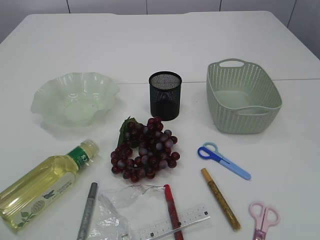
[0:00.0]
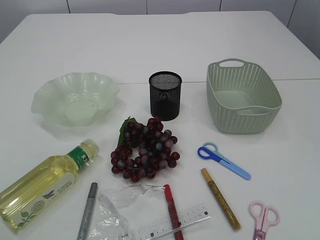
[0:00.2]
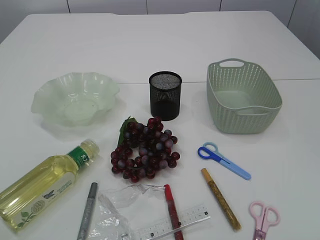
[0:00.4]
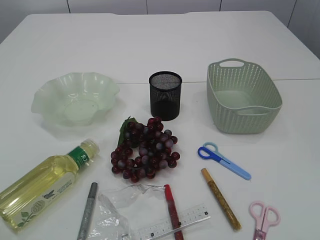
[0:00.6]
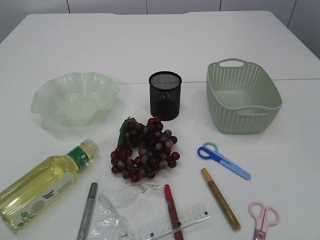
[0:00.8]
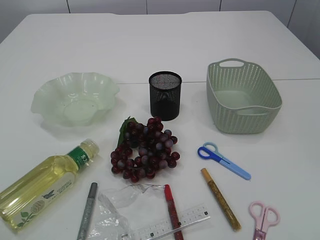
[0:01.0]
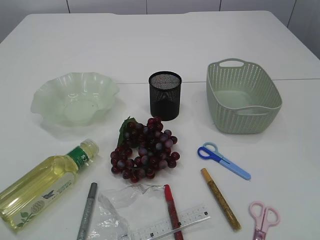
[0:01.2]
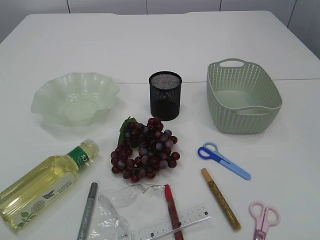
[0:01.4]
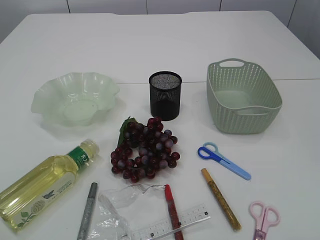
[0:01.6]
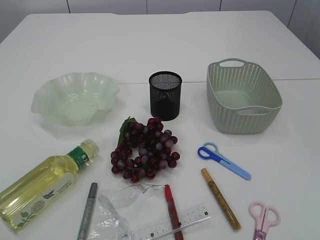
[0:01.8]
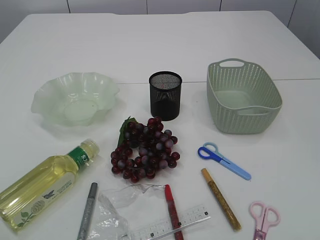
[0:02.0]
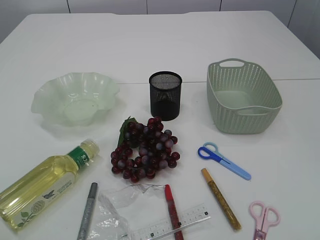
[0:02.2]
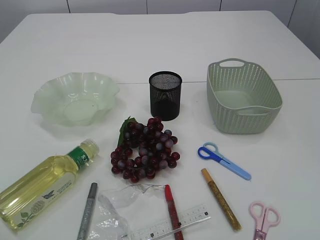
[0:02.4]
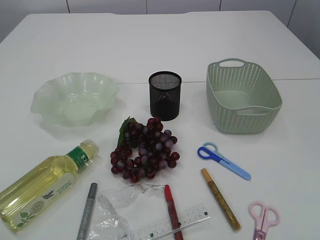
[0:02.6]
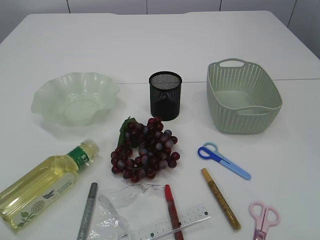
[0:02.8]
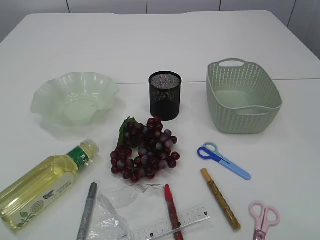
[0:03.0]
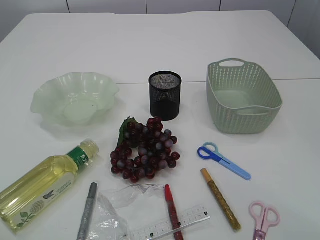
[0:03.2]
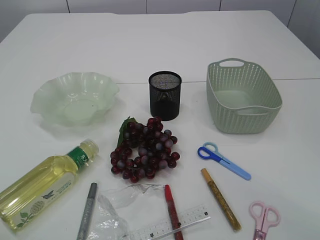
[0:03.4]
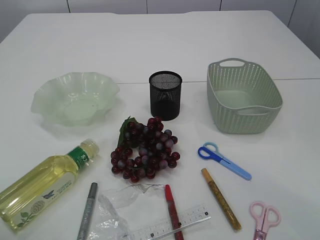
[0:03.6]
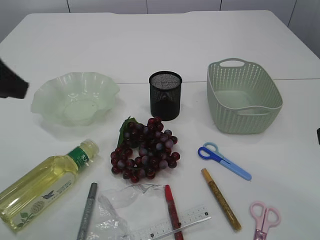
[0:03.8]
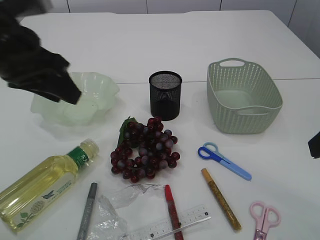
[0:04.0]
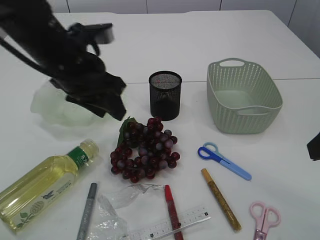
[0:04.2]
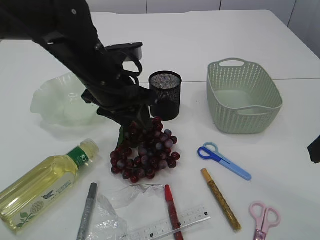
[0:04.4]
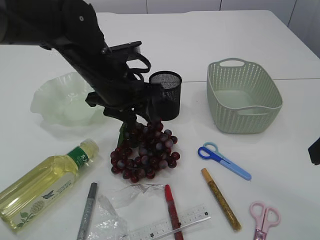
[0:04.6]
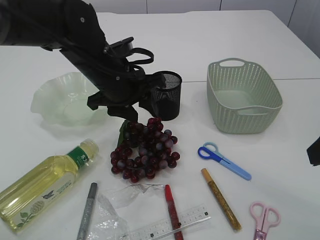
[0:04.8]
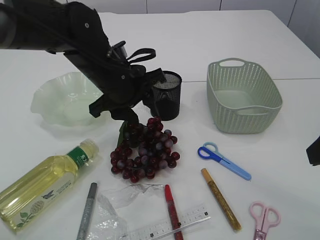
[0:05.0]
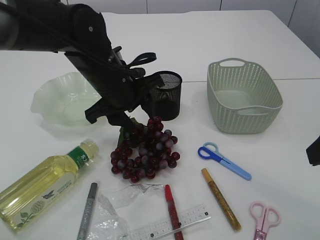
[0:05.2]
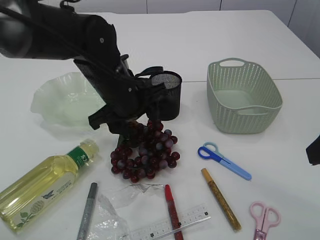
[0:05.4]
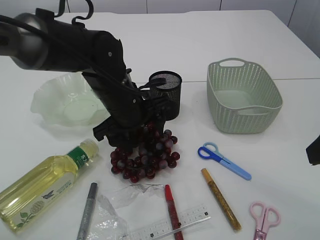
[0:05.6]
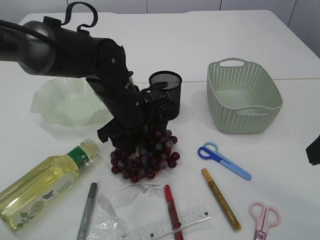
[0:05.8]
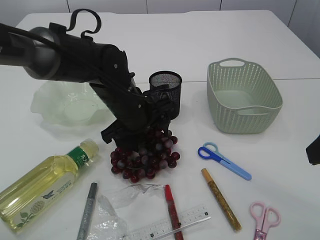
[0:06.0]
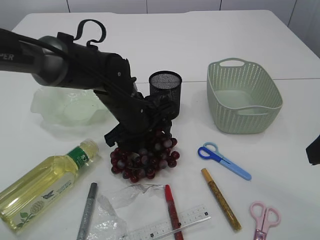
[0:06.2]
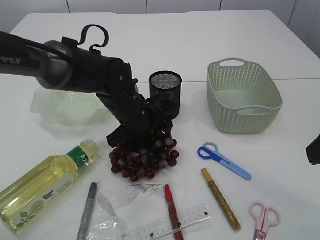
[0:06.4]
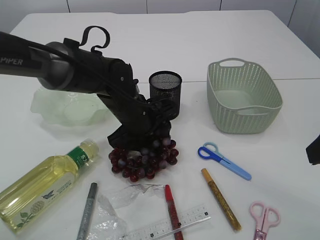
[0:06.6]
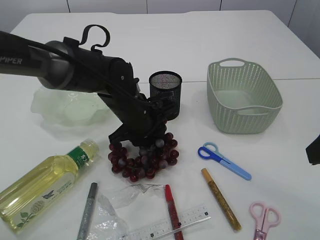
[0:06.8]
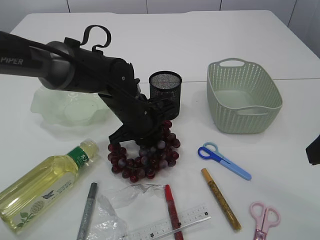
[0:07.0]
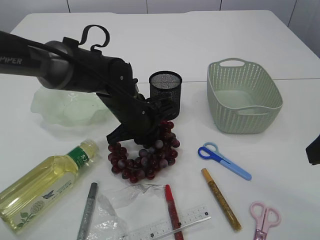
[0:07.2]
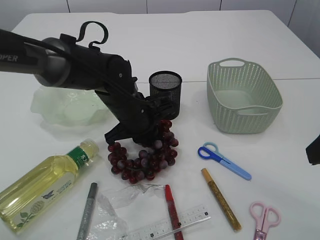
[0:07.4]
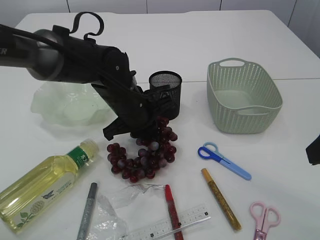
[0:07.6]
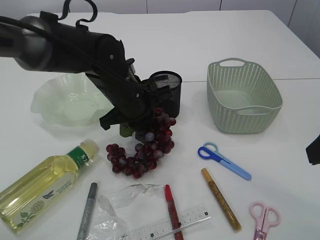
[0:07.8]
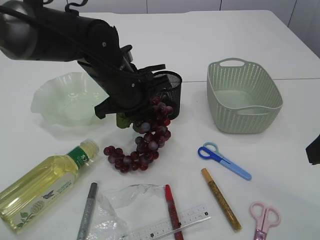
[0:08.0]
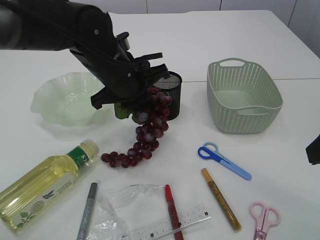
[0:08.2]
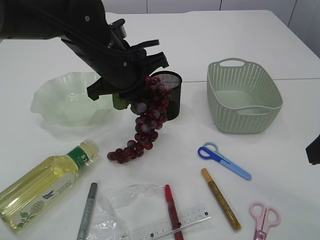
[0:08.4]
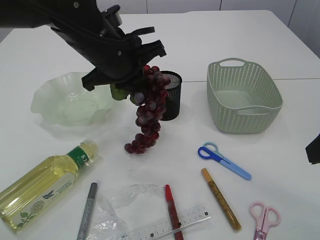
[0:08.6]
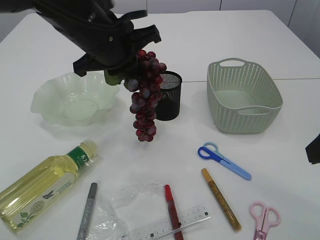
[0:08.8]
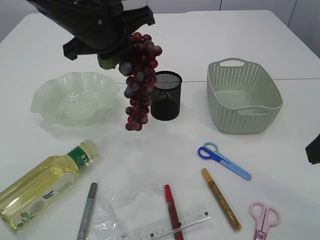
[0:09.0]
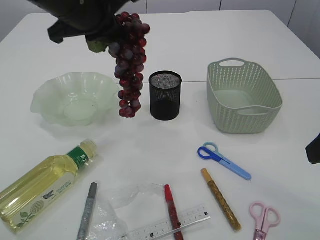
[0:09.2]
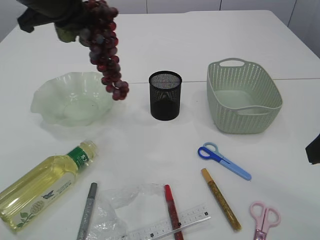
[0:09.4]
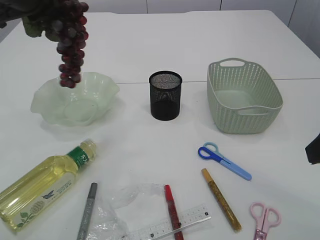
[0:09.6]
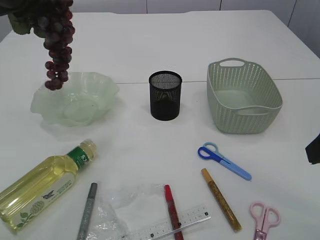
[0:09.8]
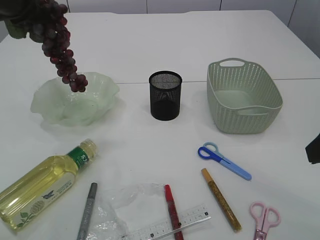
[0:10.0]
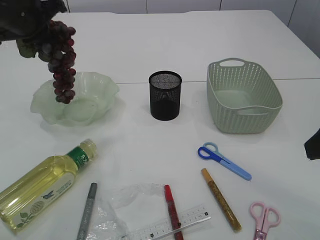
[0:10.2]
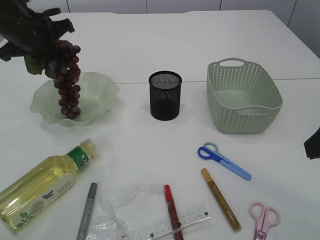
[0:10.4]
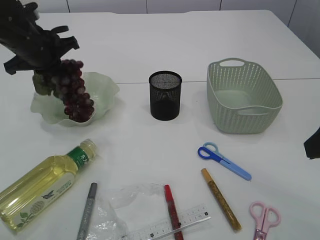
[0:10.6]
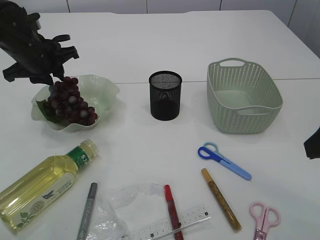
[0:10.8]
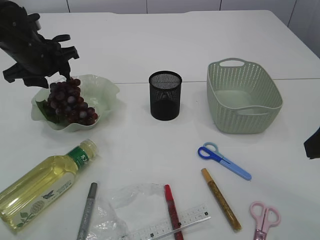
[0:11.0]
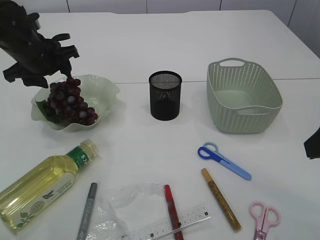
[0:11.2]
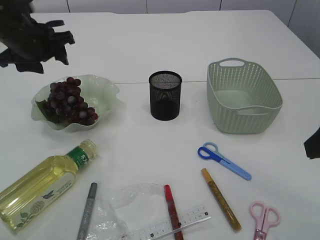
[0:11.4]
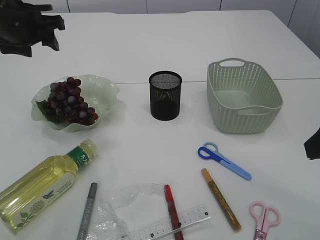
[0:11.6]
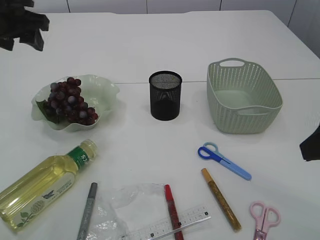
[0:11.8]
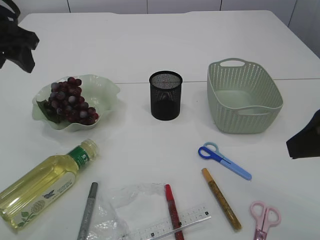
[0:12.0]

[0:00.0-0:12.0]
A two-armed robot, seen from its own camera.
Step, 0:00.0 to 0:08.8: Pick up the grapes.
Step, 0:09.0 to 0:11.6: Place the grapes in the plate.
0:03.0 to 0:04.4: The left gripper shifts about 35 cm forward and to the right, while the right gripper travels forward by approximately 15 cm.
0:04.4 to 0:06.0: The left gripper travels downward by approximately 5 cm, and opens its fingers.
0:06.0 to 0:07.6: The left gripper closes.
0:07.6 to 0:09.0: The left gripper heads upward, covering about 15 cm.
0:09.0 to 0:10.4: The left gripper moves to the left and forward, about 15 cm.
0:10.4 to 0:12.0: The left gripper heads backward and upward, covering about 10 cm, and opens.

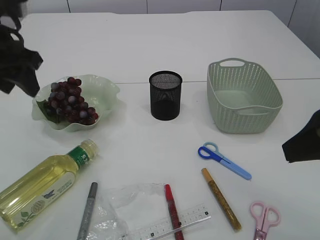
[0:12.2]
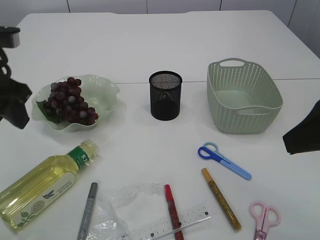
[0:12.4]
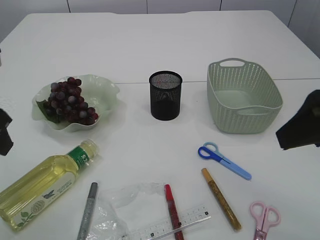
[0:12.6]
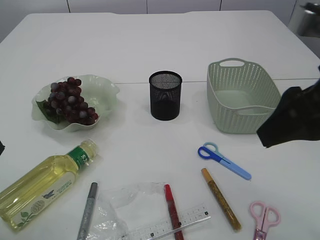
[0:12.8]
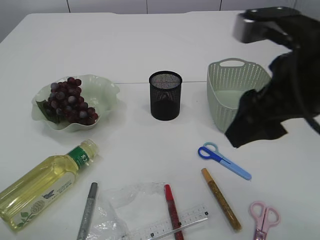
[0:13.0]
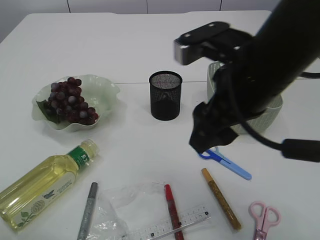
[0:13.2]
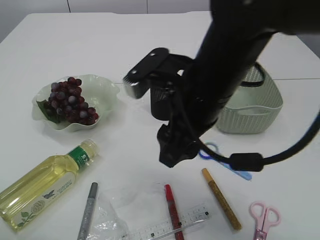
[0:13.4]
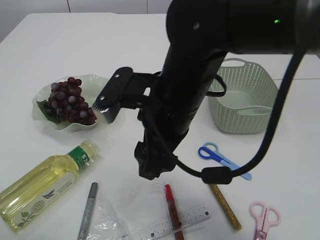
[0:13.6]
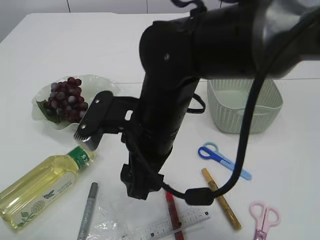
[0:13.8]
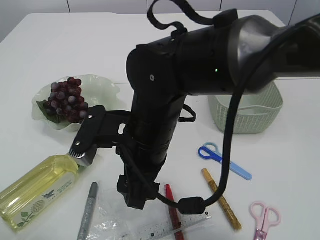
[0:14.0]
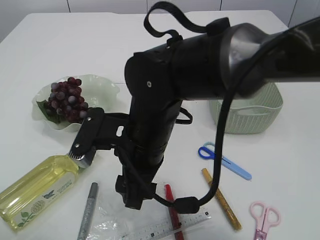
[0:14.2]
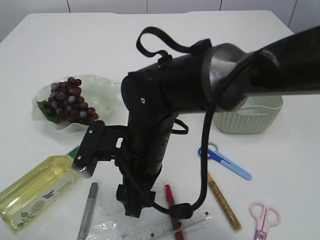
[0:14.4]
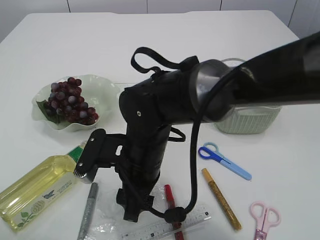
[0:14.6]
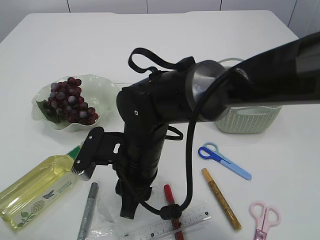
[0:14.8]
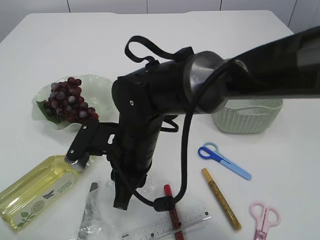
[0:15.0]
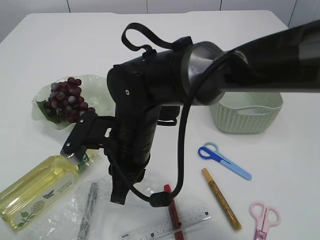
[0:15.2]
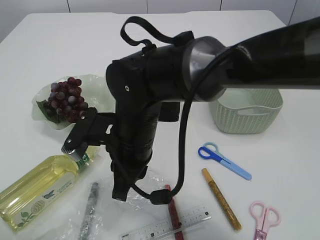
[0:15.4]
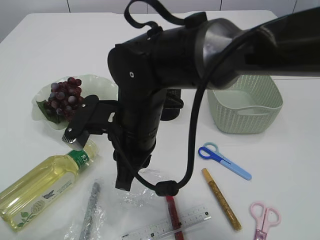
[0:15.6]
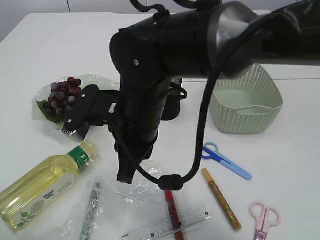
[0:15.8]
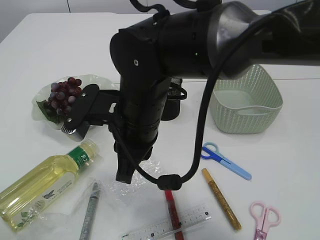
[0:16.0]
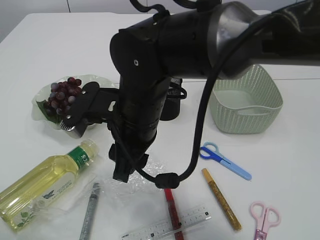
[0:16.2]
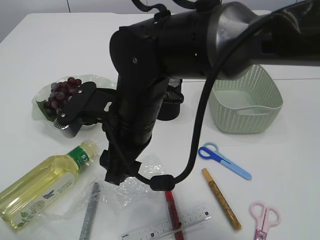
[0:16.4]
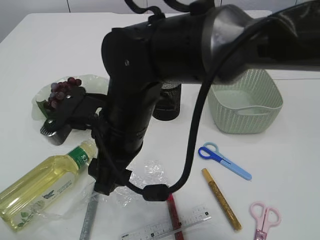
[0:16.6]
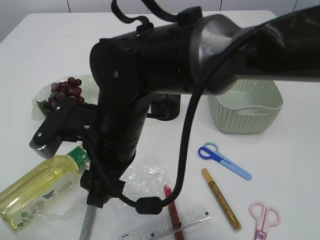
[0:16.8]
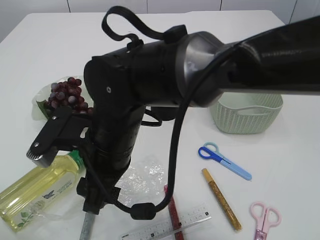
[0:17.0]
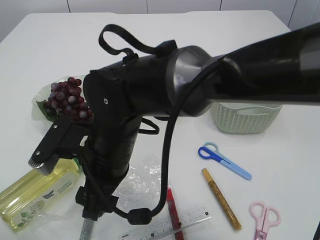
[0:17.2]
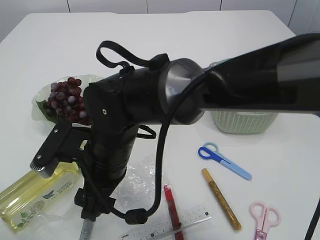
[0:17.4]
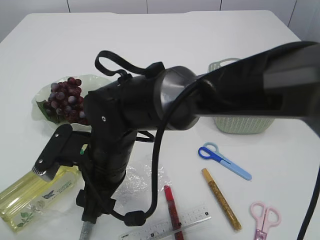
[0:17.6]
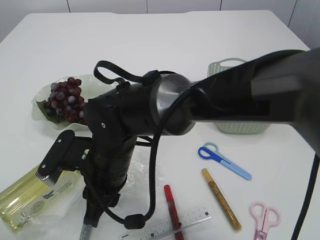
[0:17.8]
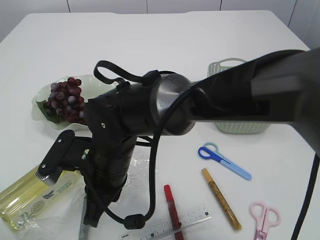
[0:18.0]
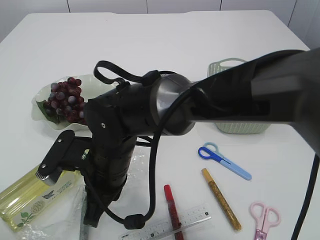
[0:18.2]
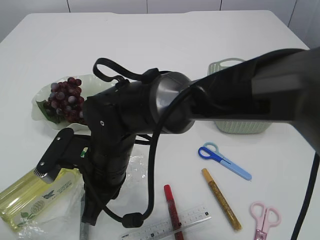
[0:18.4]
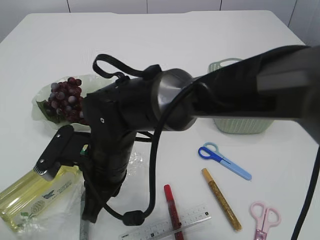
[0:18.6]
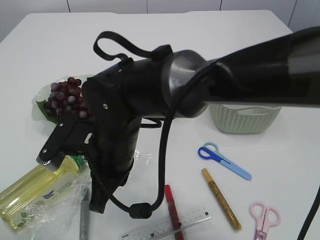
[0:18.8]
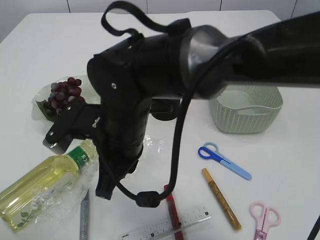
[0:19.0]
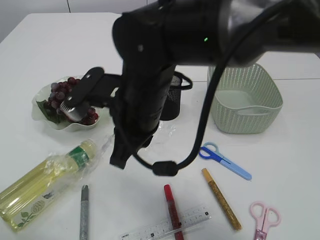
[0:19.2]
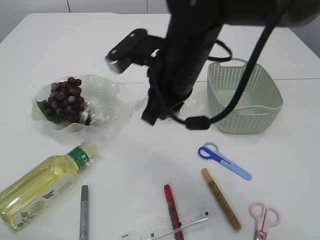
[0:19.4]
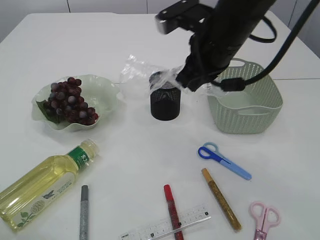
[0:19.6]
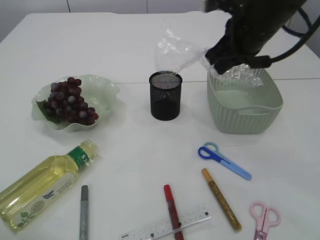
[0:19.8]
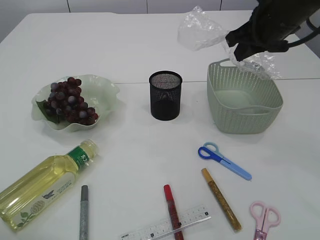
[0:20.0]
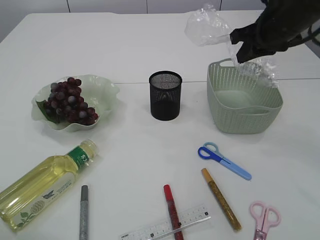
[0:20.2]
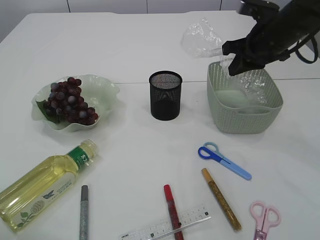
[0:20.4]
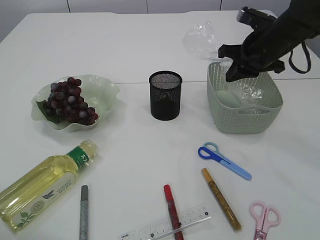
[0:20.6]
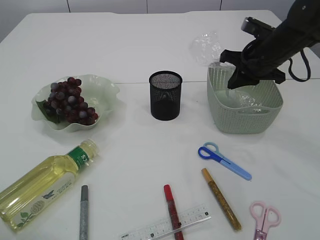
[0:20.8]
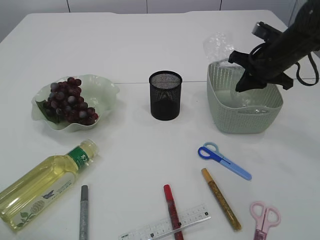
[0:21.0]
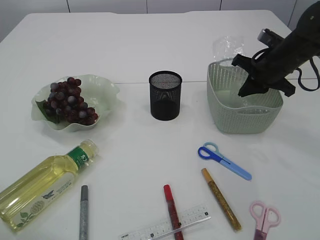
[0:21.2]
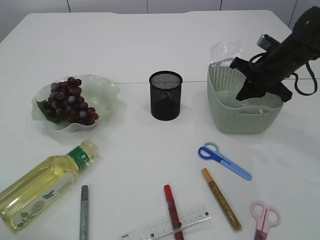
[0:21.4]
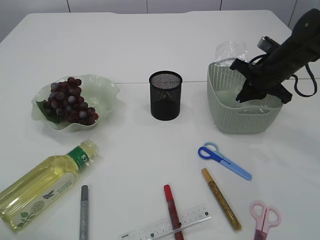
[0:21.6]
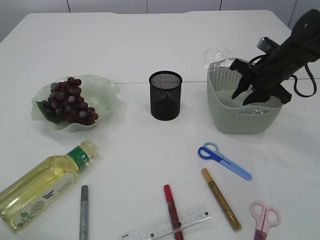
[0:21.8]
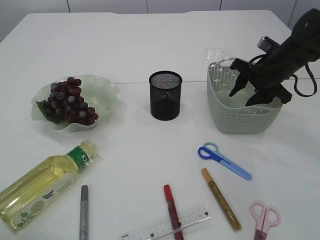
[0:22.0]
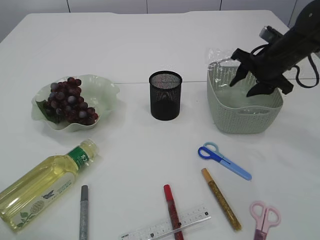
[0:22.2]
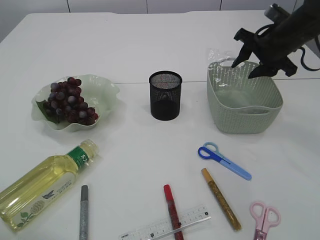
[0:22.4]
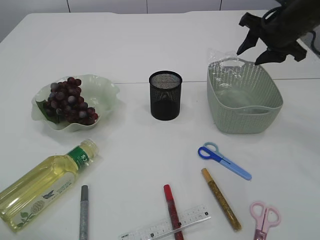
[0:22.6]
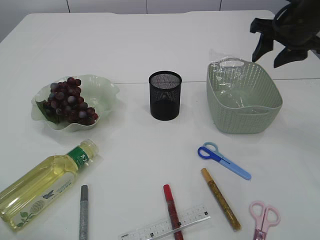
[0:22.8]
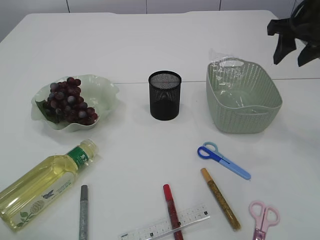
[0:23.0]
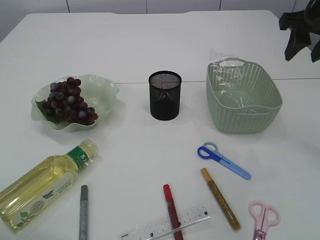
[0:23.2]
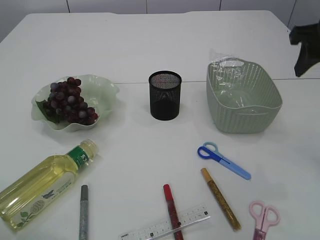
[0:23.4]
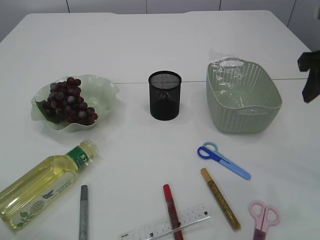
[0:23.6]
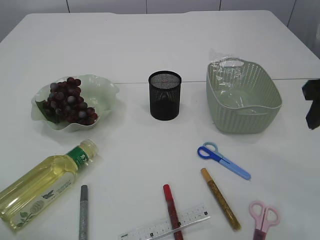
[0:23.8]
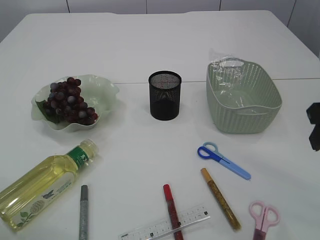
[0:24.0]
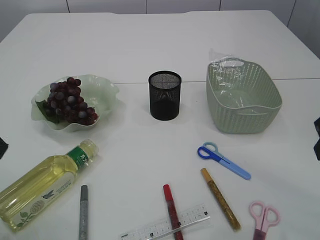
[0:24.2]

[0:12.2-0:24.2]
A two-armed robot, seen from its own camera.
Step, 0:12.2 to 0:19.2: Pick up the plastic.
Step, 0:19.4 to 0:22.6: Place the plastic in the basket.
0:12.2 to 0:13.8: The right gripper goes approximately 25 cm to the left; the left gripper moves backward, roughly 15 cm.
0:13.8 to 0:15.2: The right gripper goes about 5 cm downward, and closes its fingers.
0:15.2 to 0:16.6: The right gripper changes place by some 5 cm, and opens its fingers.
0:16.6 to 0:18.2: The right gripper heads downward, covering about 10 cm, and closes its fingers.
0:18.2 to 0:19.8: The right gripper moves to the right, upward and forward, about 30 cm.
0:19.8 to 0:21.2: The right gripper is displaced downward, to the right and forward by roughly 15 cm.
0:21.2 to 0:22.6: The right gripper shifts approximately 5 cm upward, and opens up.
0:22.6 to 0:24.2: The right gripper moves backward, some 25 cm.
